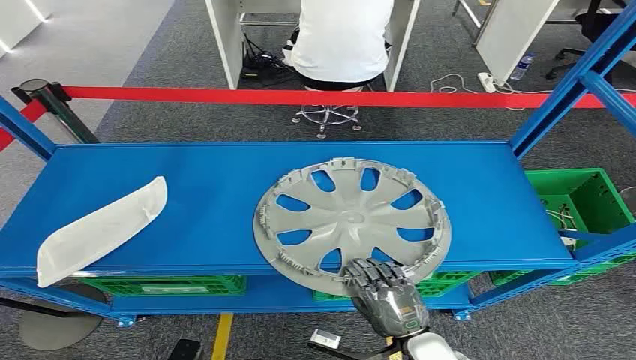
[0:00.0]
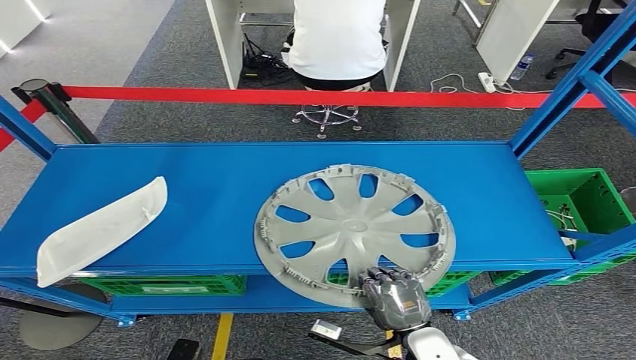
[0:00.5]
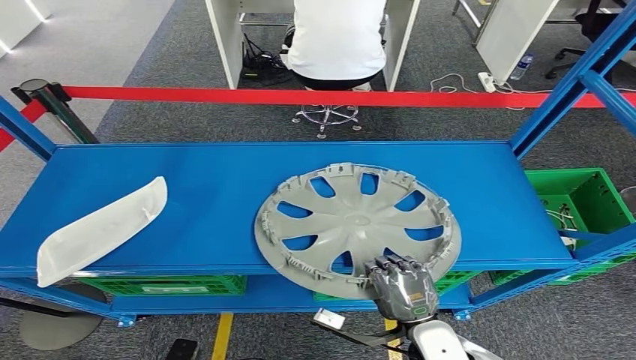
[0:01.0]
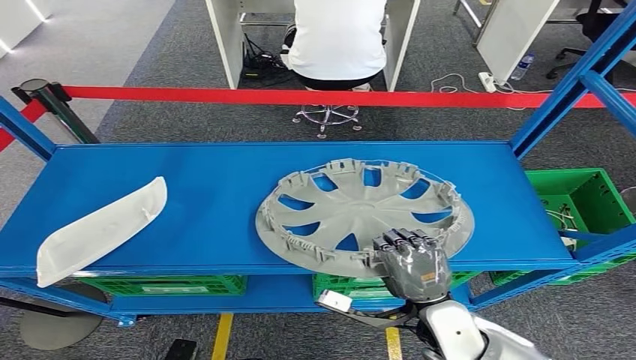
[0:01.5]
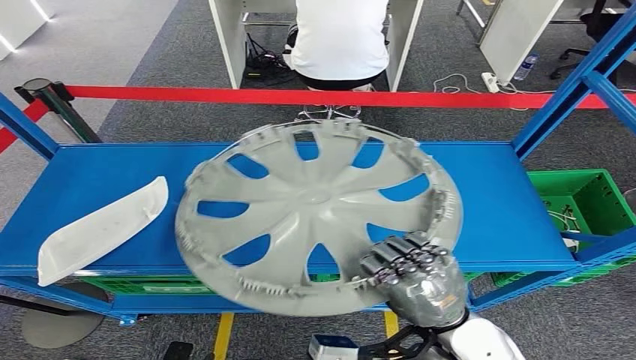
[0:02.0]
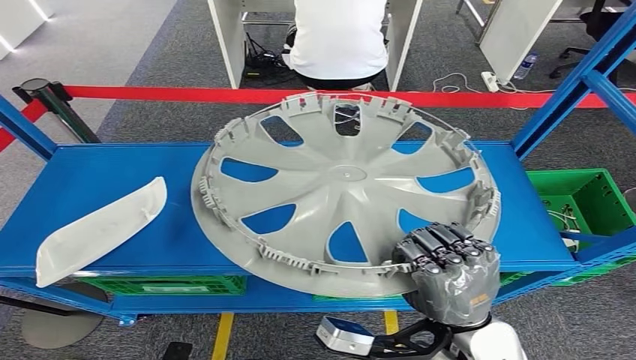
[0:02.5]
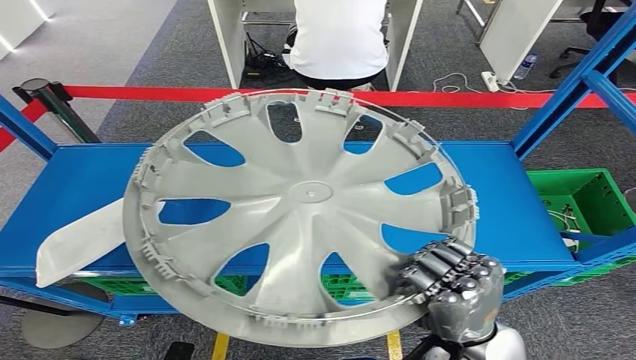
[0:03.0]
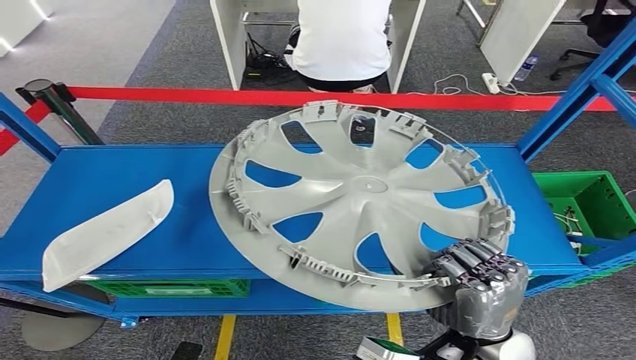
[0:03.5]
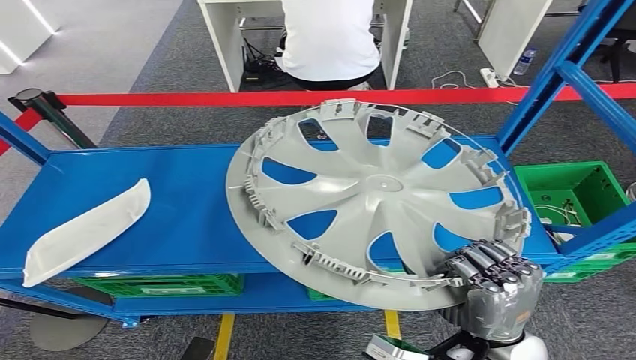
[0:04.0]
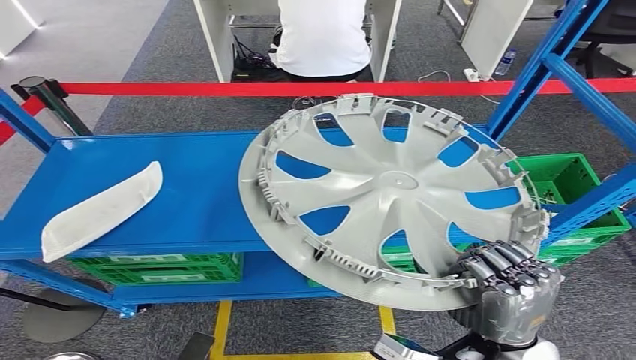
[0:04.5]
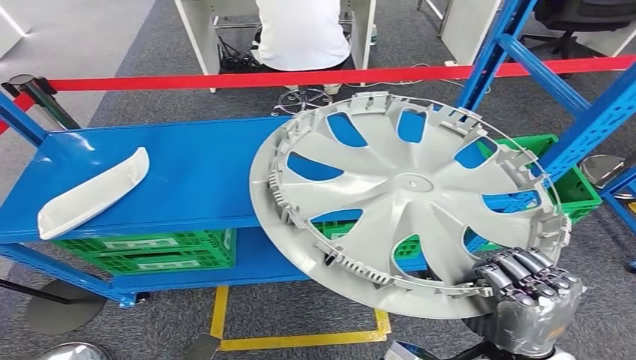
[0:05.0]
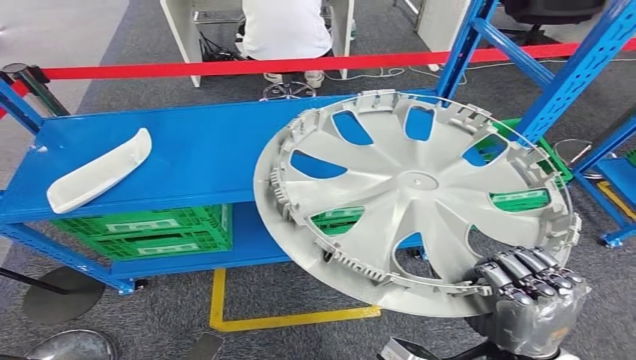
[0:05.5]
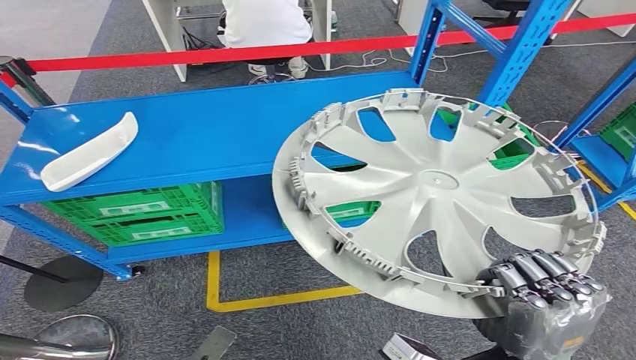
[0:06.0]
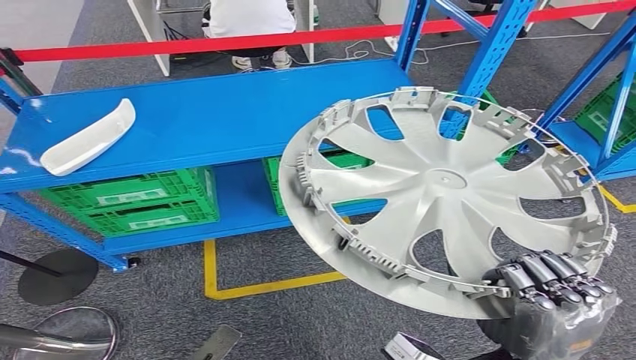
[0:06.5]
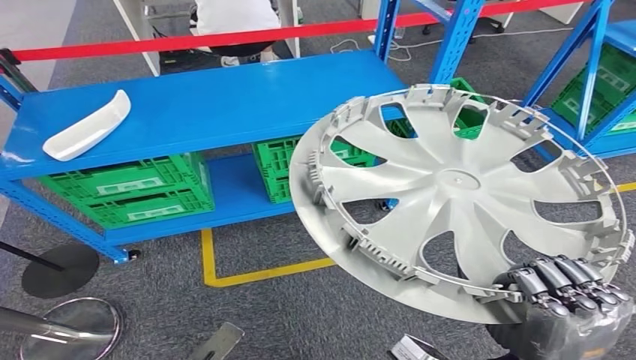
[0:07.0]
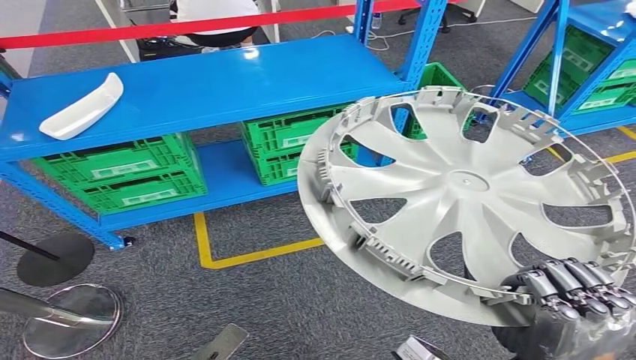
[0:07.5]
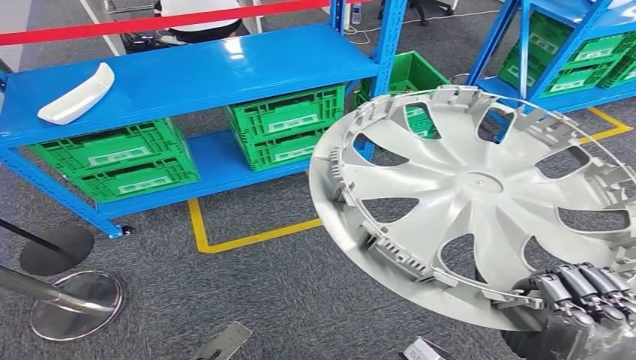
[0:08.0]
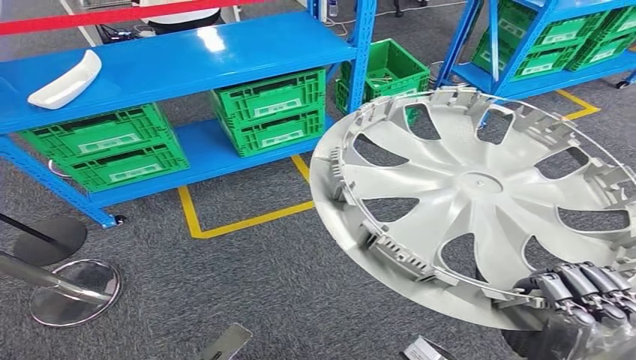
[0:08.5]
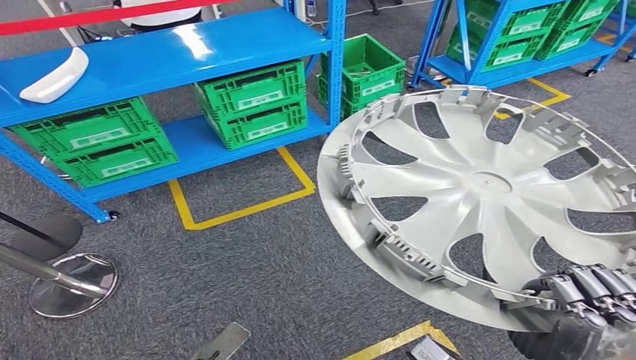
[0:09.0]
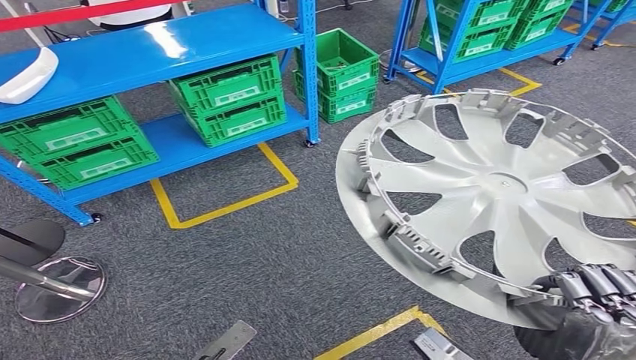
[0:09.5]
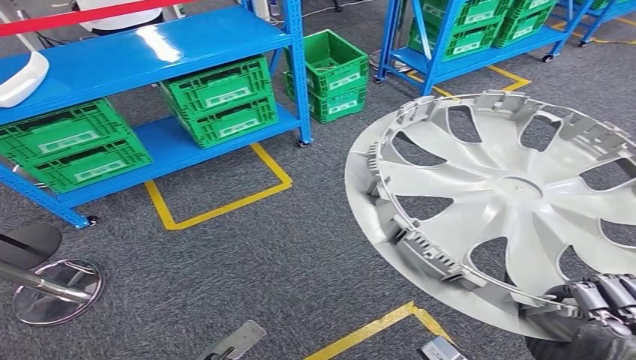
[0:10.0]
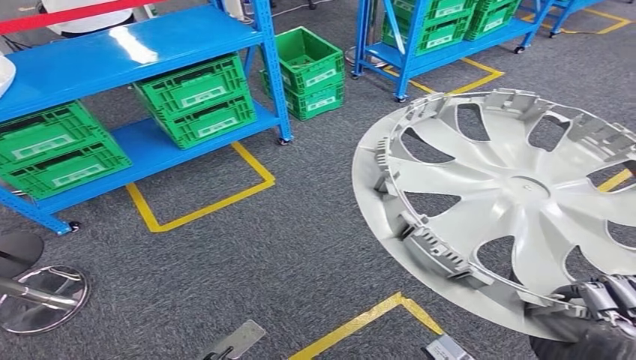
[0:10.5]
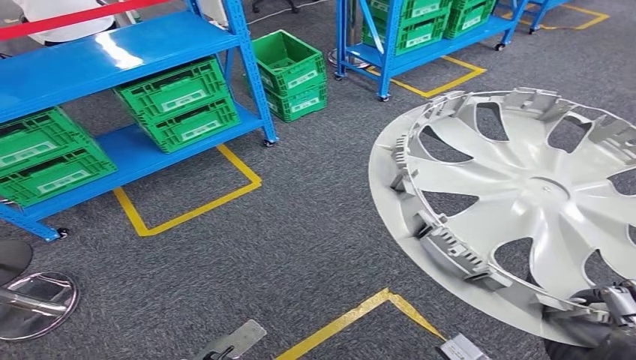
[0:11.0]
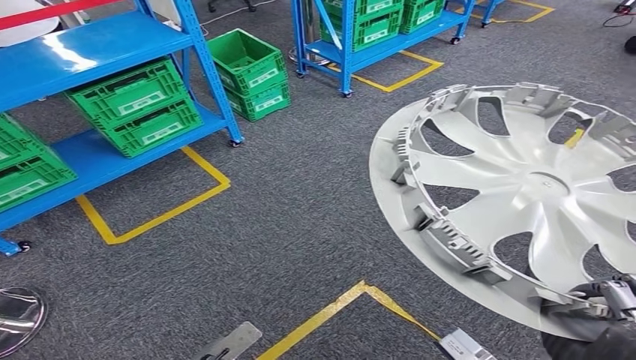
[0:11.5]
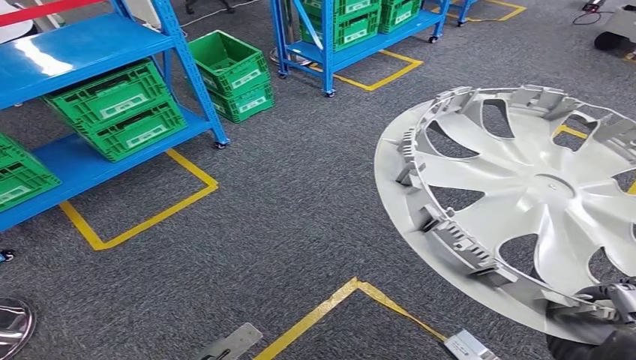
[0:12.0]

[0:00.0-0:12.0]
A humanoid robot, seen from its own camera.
Step, 0:00.0 to 0:04.0: Pick up the small parts from the shelf.

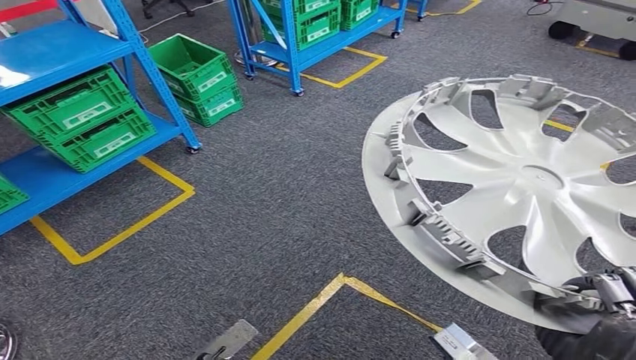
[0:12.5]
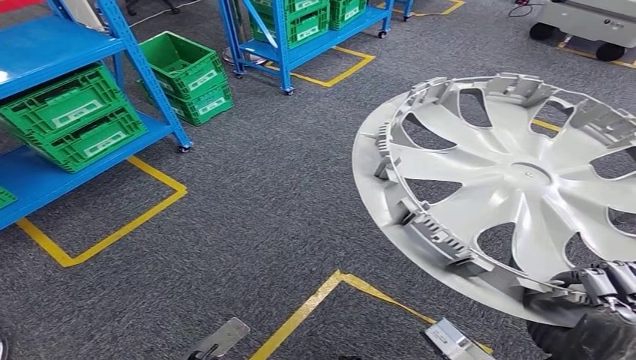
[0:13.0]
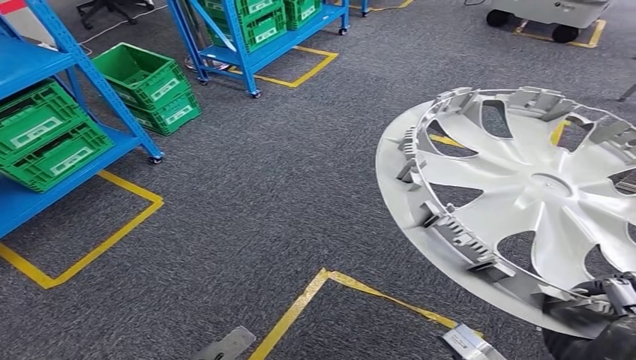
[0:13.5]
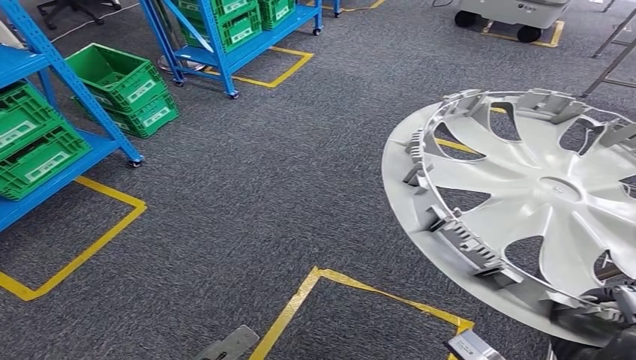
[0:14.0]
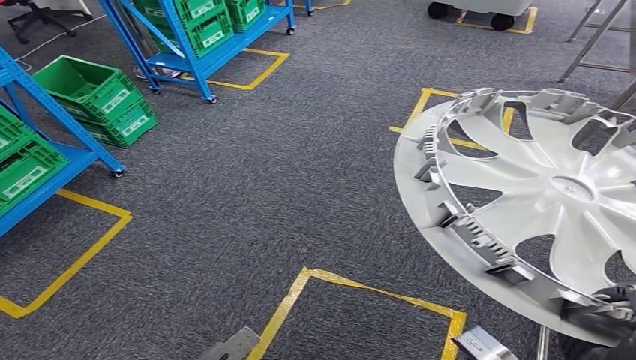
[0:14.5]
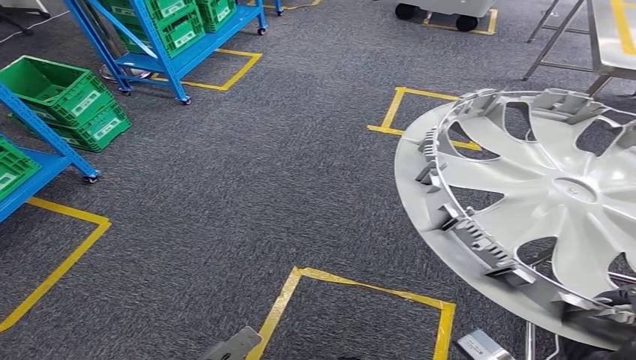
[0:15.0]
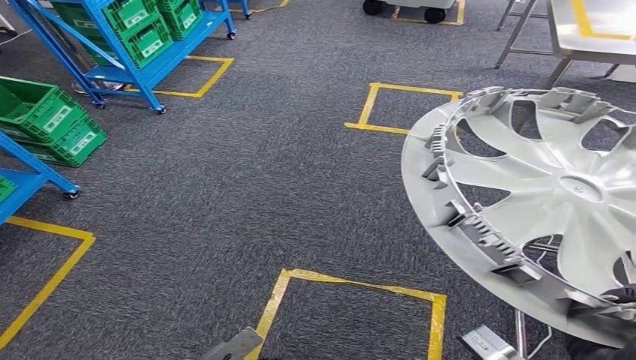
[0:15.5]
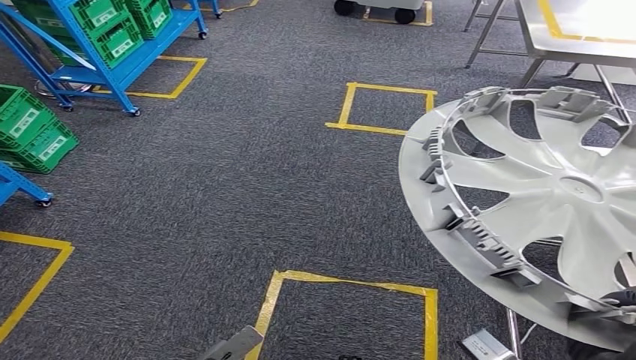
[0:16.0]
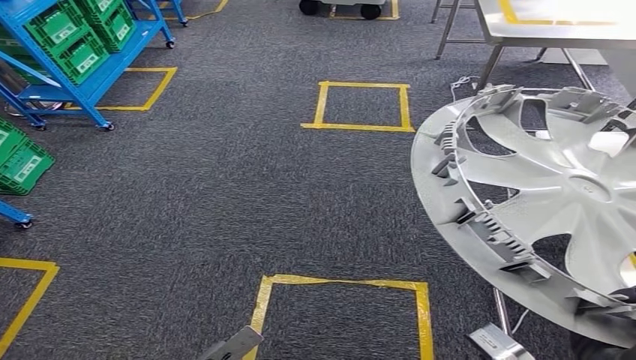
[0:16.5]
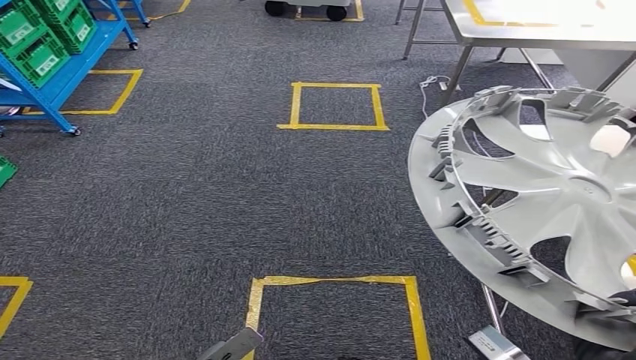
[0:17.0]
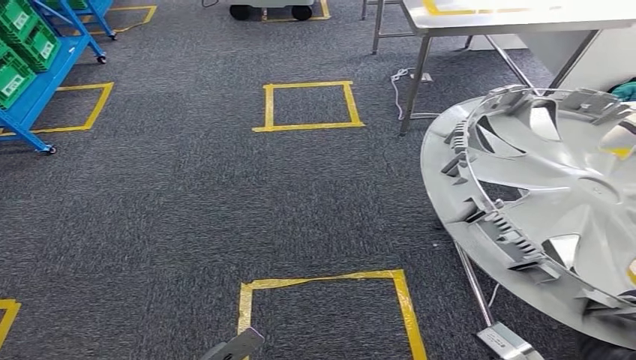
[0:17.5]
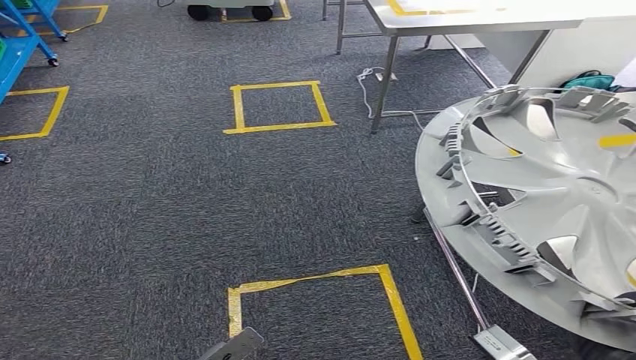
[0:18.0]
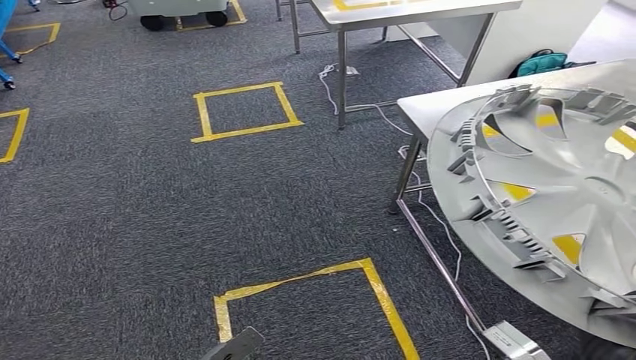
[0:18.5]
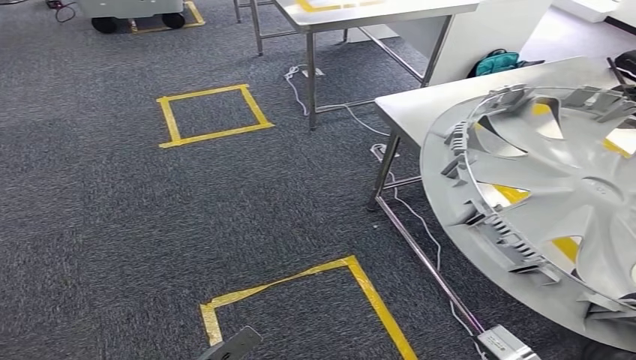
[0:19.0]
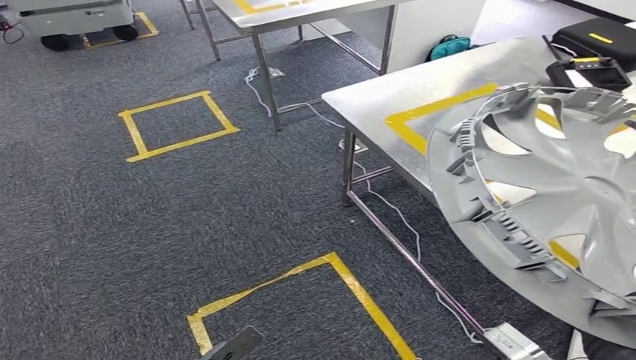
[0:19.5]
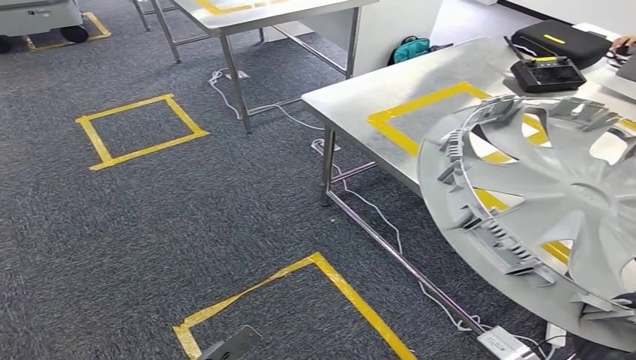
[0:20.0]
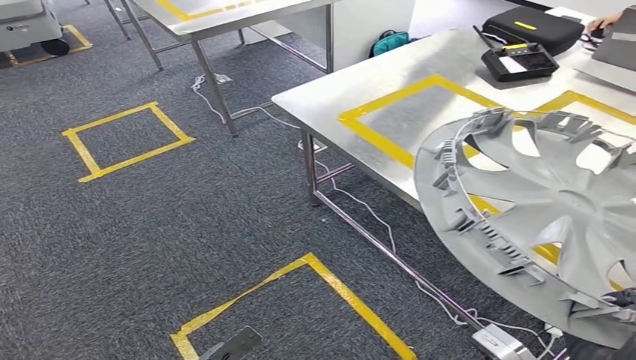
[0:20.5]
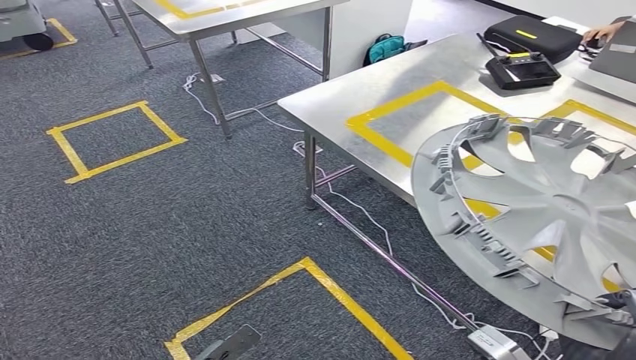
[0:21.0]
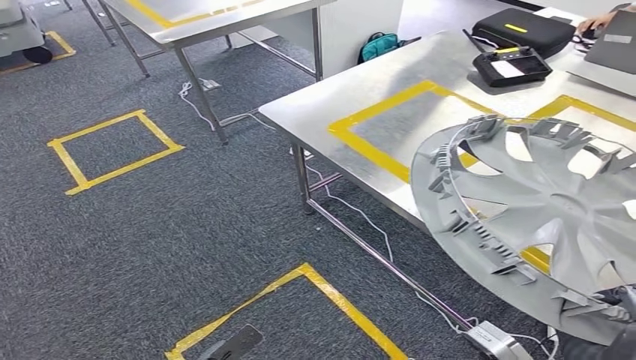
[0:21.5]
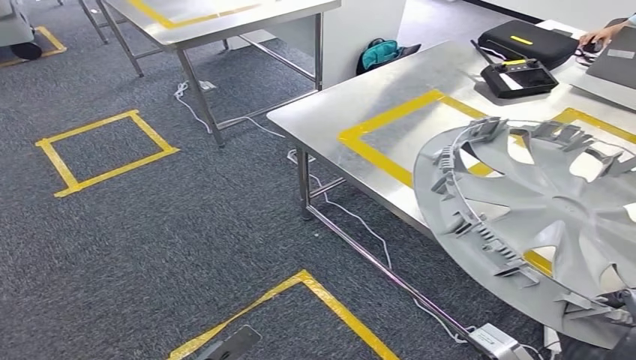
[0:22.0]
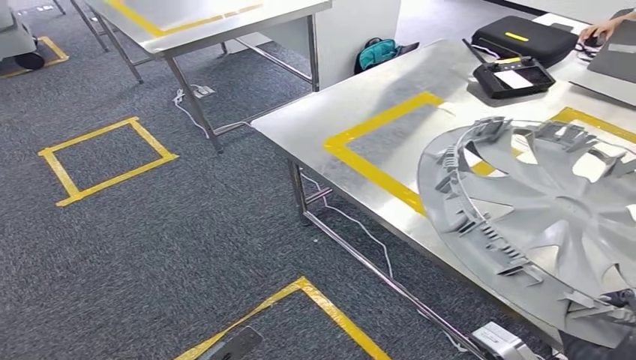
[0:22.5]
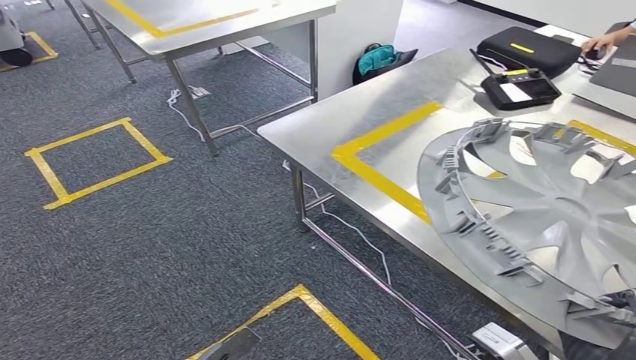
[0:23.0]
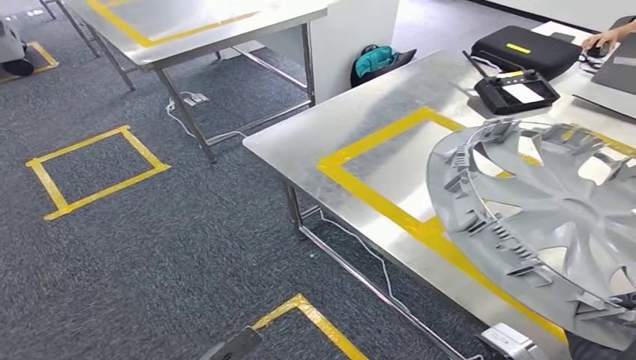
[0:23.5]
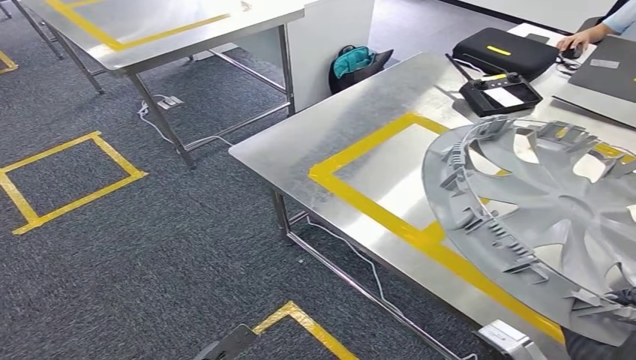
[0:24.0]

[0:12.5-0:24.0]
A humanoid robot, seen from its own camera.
Step, 0:12.5 to 0:23.5: Move the small parts to the workbench.
